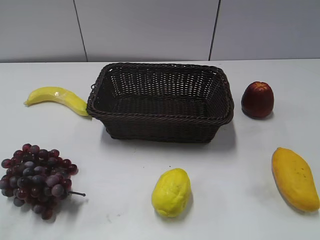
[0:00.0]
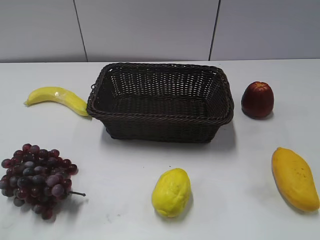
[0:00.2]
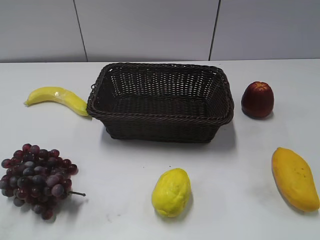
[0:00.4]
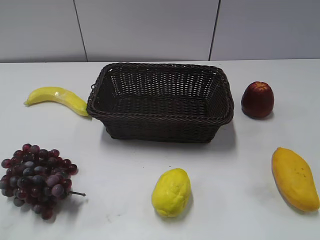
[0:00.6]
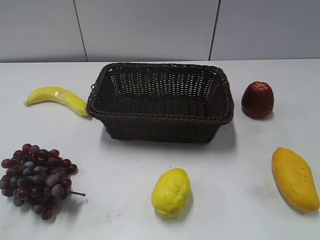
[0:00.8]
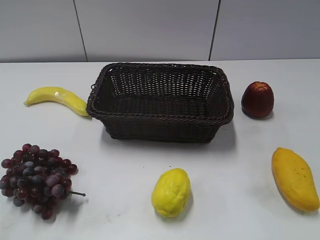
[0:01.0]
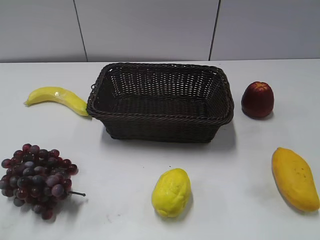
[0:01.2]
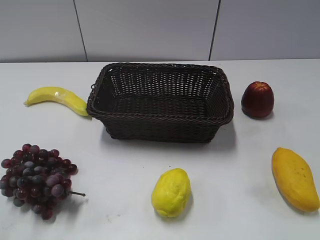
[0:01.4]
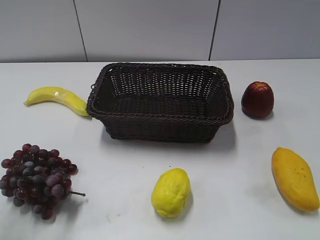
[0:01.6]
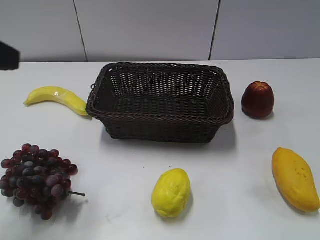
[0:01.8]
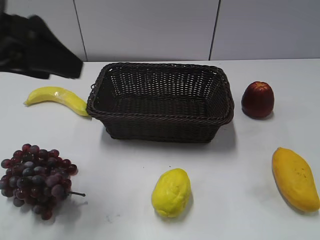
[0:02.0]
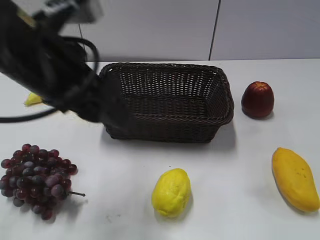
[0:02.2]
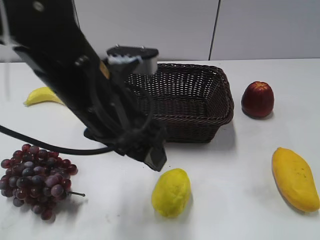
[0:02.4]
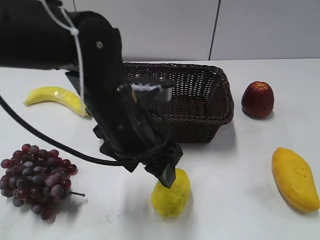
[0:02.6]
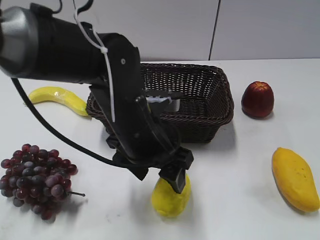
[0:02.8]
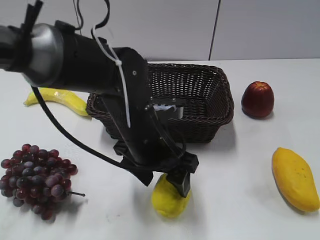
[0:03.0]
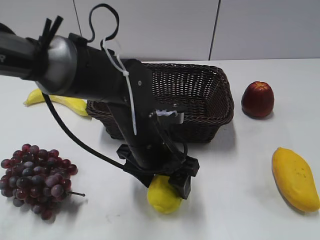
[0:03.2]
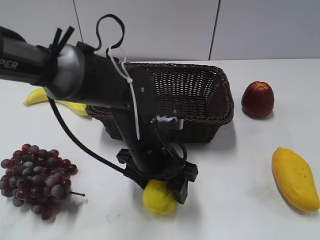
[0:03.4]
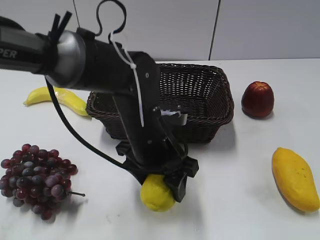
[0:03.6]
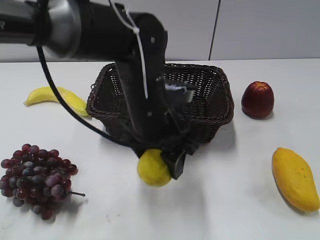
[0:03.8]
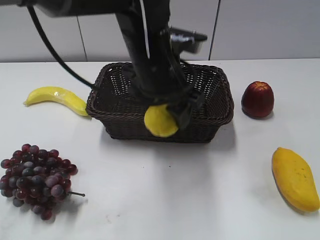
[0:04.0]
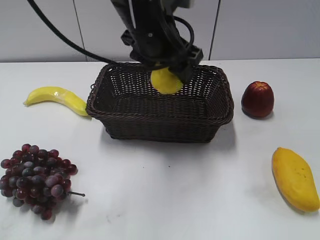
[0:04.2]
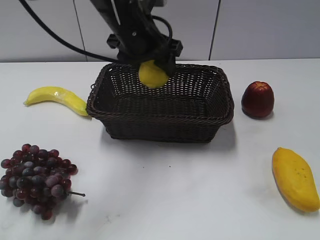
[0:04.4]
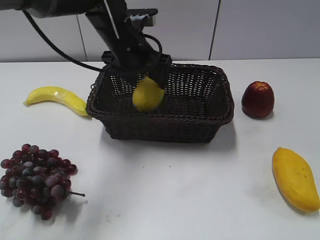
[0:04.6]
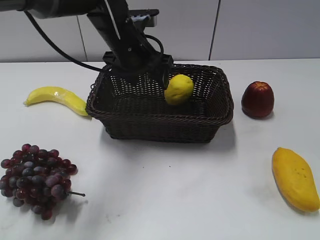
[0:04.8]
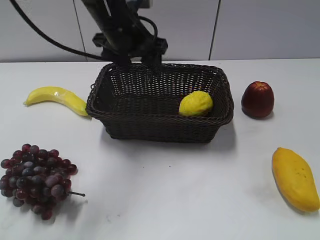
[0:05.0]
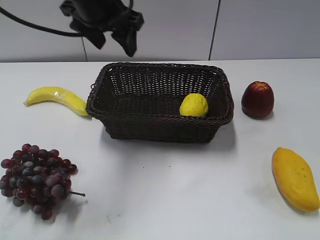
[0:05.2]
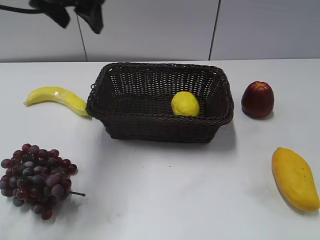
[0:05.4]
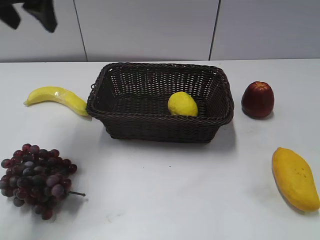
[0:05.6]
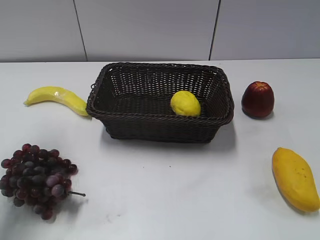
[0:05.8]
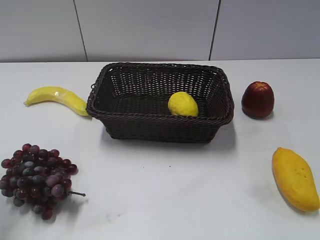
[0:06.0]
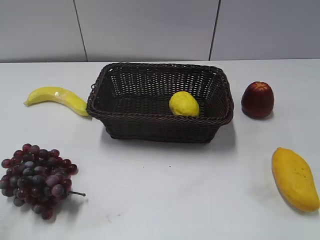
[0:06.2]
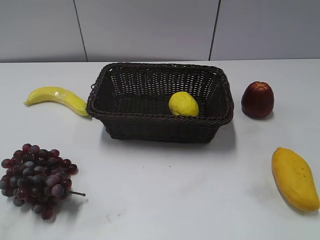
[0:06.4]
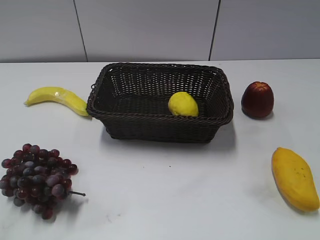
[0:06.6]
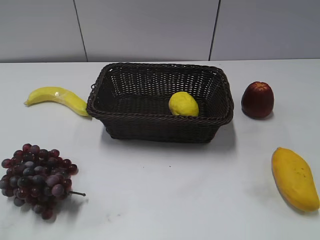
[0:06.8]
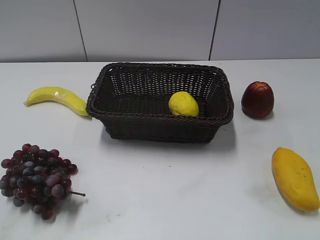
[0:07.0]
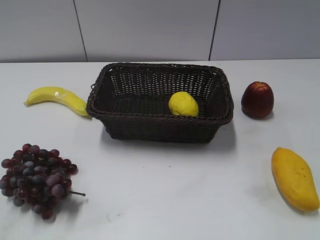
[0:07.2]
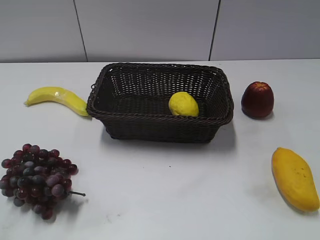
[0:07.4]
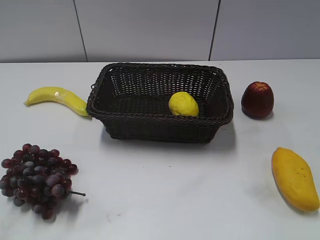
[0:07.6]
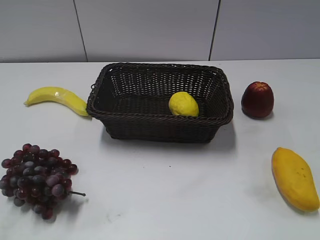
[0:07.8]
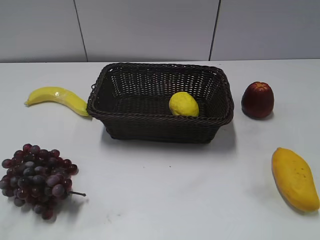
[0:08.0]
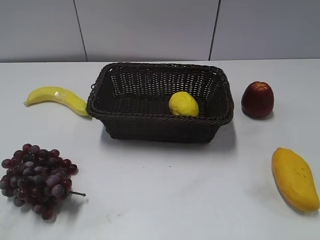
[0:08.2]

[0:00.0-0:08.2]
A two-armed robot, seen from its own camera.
Step, 1.8 to 3.0 s: Grasp the lemon with left gripper.
Step, 3.4 to 4.8 s: Place the lemon in the basket with left gripper.
1.6 to 3.2 s: The left gripper travels to the right, downward and forward by some 35 cm, and opens up.
3.2 to 5.0 s: The left gripper shifts approximately 20 cm forward and upward.
5.0 to 6.6 s: The left gripper goes approximately 50 cm backward and to the left, and closes.

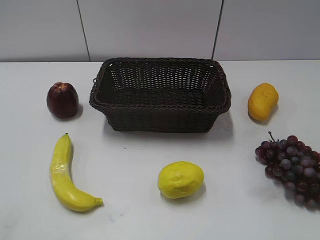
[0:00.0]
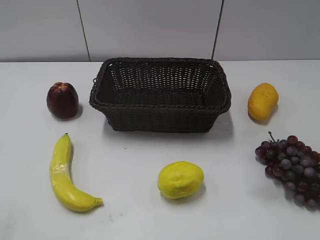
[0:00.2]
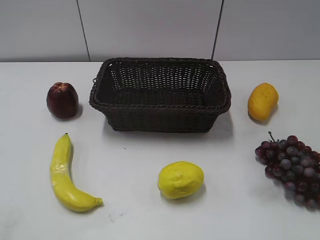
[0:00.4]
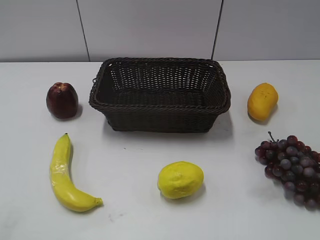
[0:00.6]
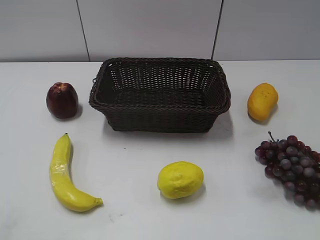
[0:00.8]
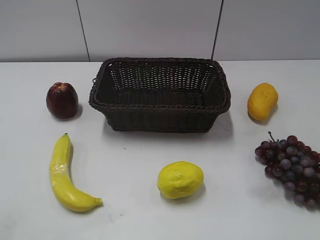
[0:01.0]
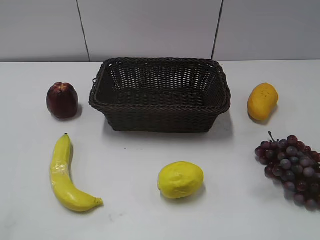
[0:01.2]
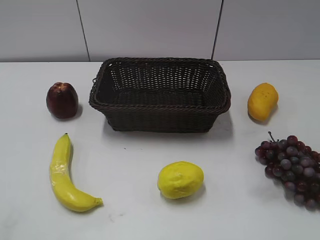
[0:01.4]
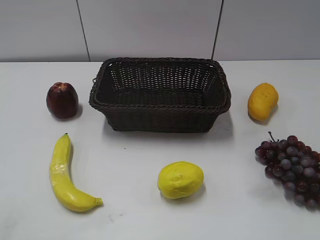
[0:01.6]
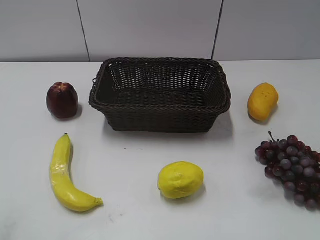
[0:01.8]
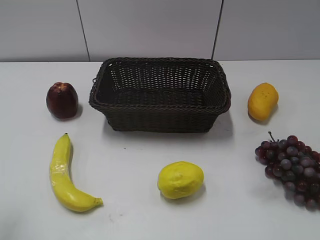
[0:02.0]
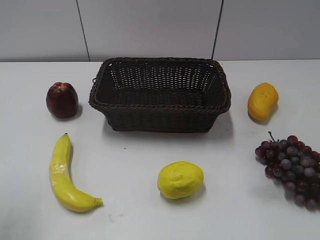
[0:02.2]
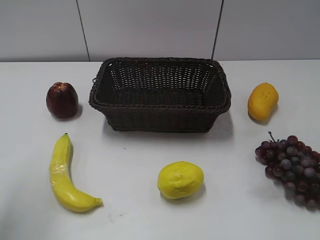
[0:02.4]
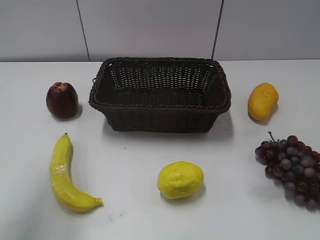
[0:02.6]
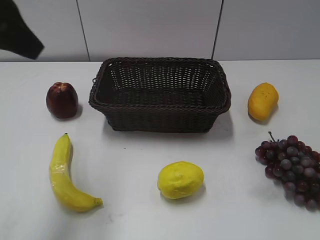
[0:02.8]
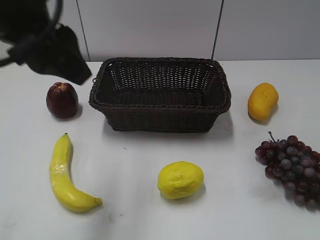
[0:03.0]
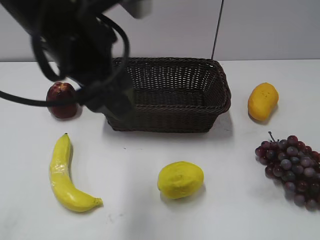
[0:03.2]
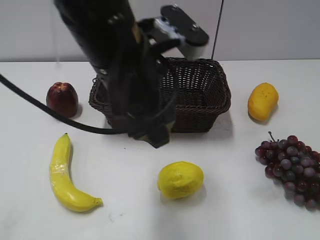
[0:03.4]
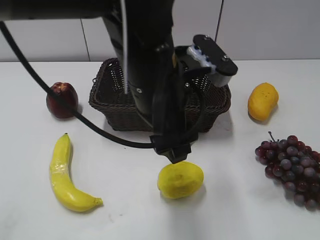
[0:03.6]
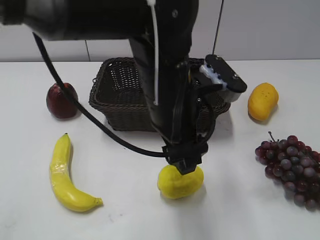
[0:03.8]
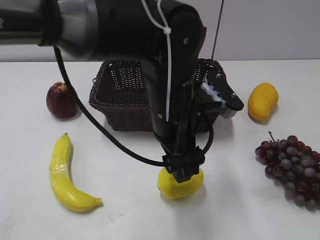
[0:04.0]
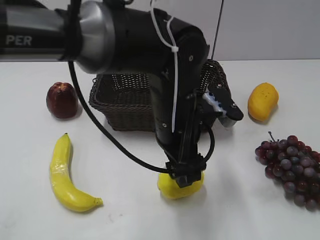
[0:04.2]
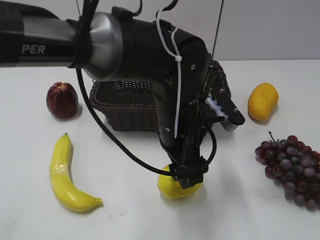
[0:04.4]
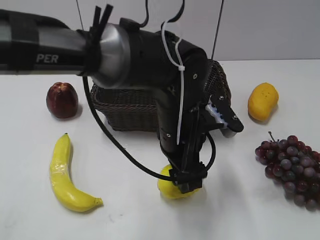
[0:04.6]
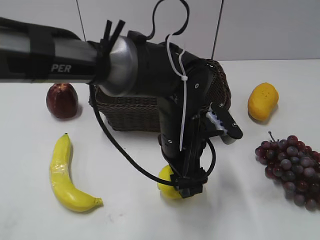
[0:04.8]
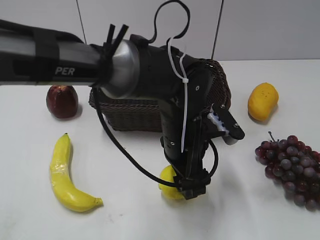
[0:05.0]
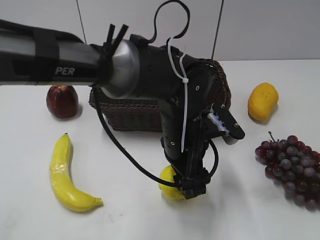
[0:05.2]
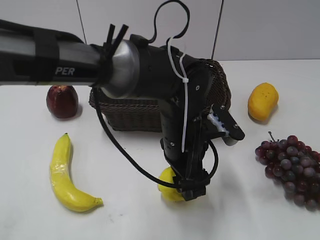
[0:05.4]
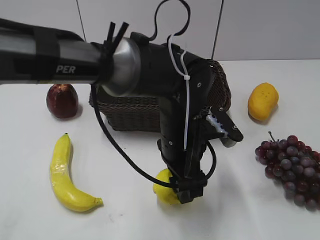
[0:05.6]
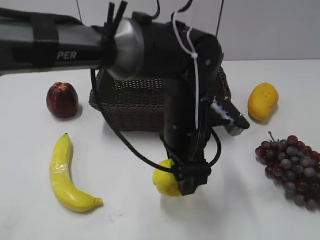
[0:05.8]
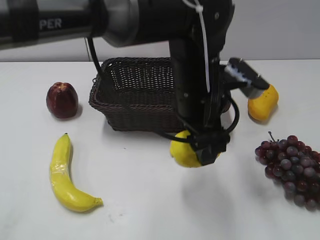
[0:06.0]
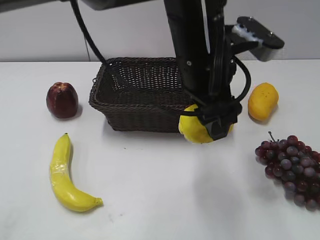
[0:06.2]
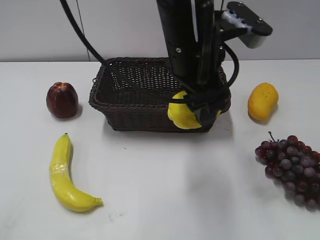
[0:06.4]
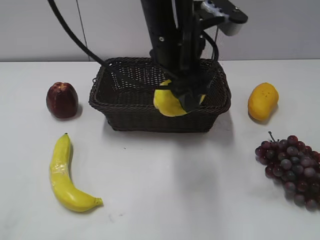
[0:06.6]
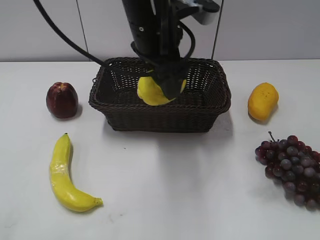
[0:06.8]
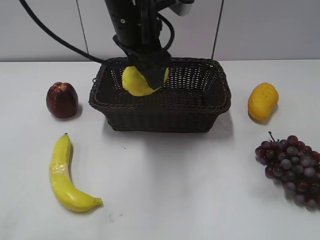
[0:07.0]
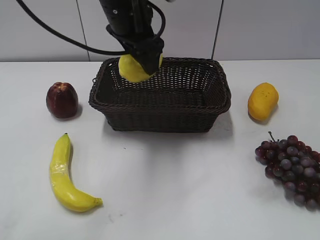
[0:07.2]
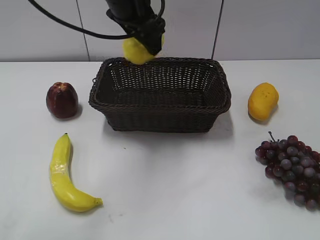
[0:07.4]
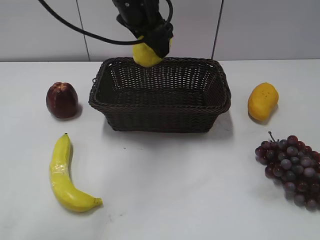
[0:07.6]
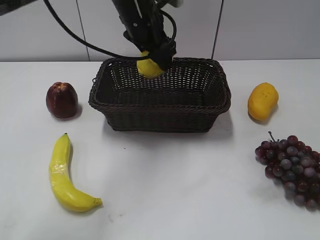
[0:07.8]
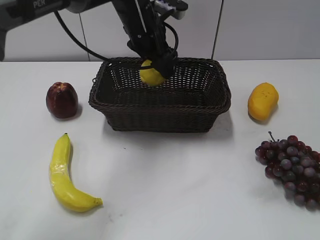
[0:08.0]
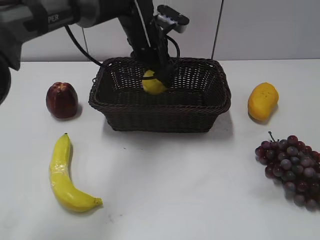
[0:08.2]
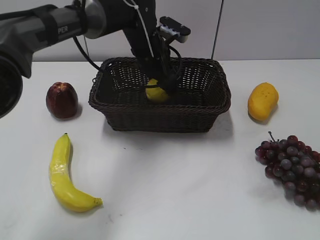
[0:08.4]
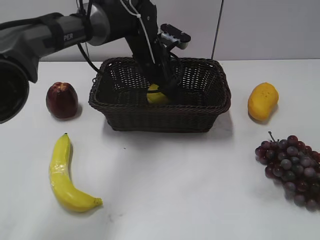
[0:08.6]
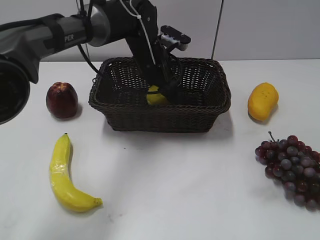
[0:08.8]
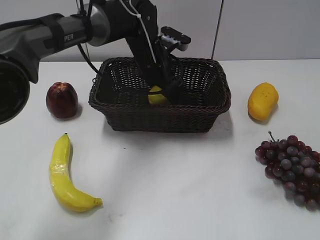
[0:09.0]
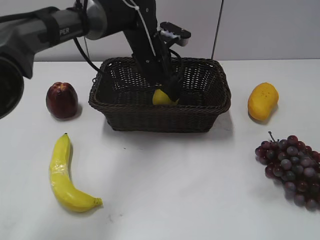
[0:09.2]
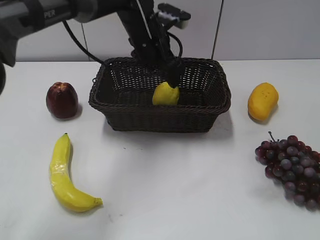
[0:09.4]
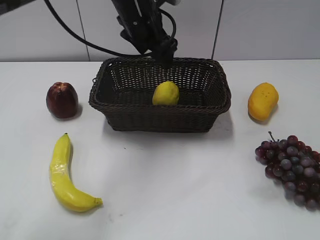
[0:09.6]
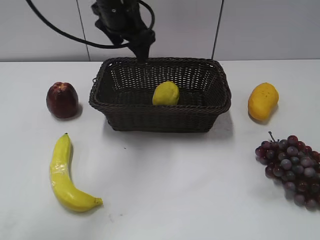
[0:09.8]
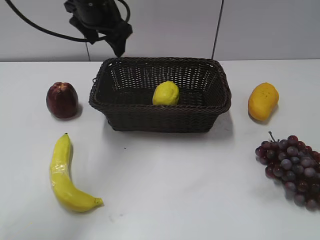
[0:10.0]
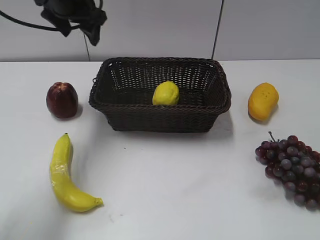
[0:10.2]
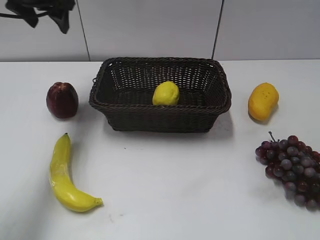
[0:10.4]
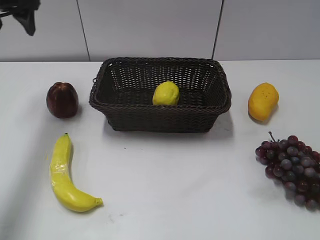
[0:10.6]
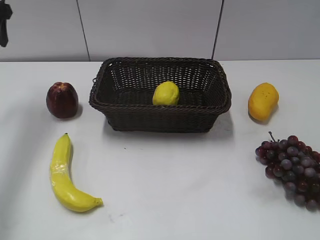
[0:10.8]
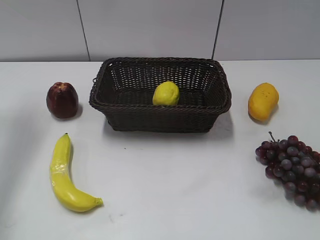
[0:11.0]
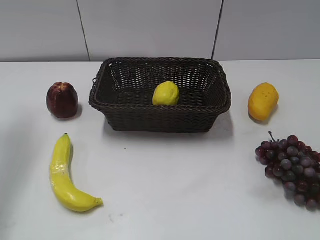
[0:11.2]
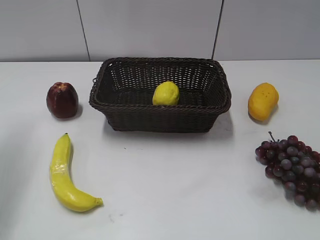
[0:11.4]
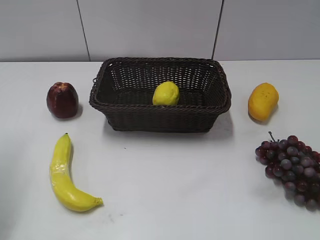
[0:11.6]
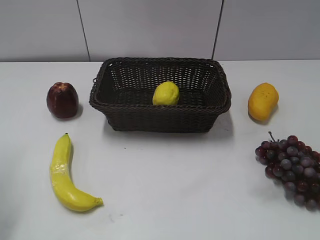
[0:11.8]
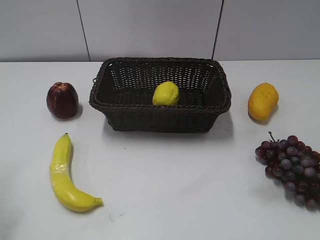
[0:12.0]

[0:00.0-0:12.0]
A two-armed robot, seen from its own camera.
Step, 2.8 to 5.8 s: Grasp the lemon with left gripper.
Step, 6.0 to 9.2 s: Place the lemon in the basket with left gripper.
1.6 to 3.0 s: The left gripper travels forward and to the right by some 25 cm.
3.0 to 4.4 s: The left gripper is displaced downward and to the right by about 25 cm.
4.4 to 6.0 s: The left gripper shifts roughly 5 cm upward.
6.0 to 7.6 s: The left gripper travels forward, to the left and upward by some 20 cm.
7.6 to 9.0 s: The left gripper heads downward, covering approximately 10 cm, and opens.
9.0 to 10.4 s: The left gripper shifts some 25 cm to the left and upward, and closes its fingers.
10.4 to 12.0 s: The left gripper is displaced backward and to the left by some 30 cm.

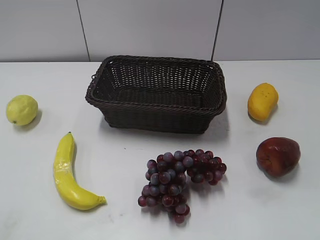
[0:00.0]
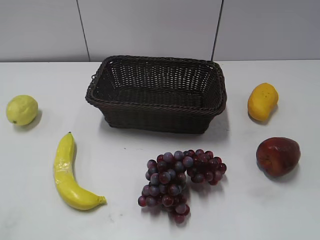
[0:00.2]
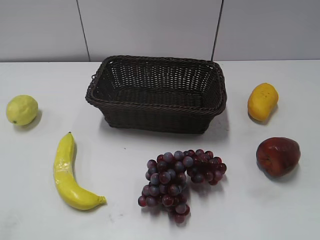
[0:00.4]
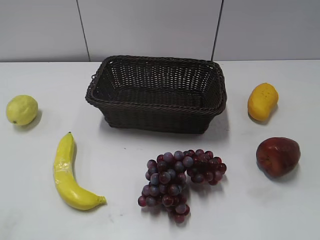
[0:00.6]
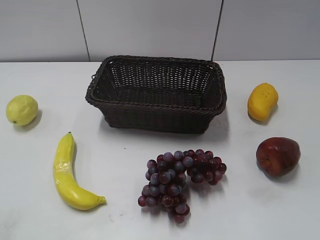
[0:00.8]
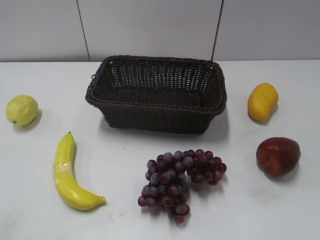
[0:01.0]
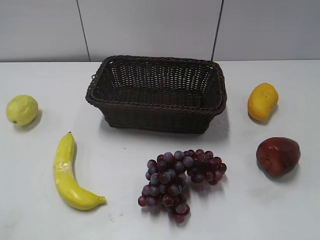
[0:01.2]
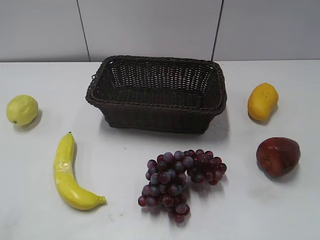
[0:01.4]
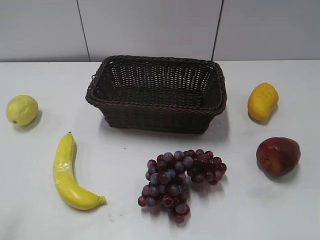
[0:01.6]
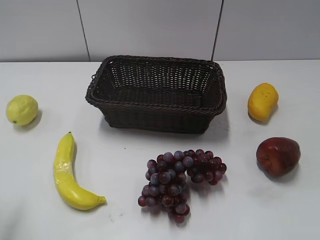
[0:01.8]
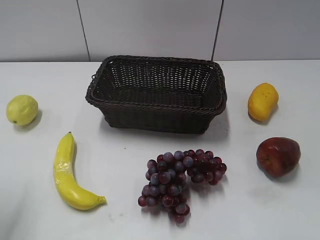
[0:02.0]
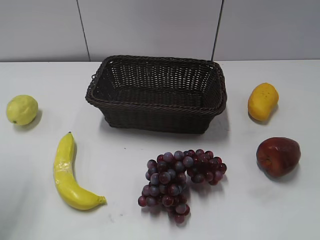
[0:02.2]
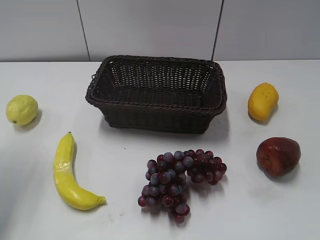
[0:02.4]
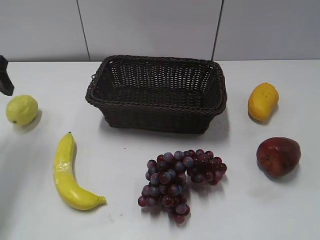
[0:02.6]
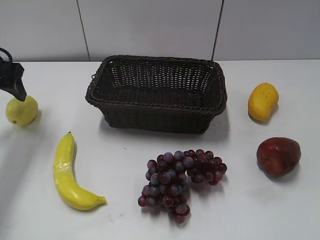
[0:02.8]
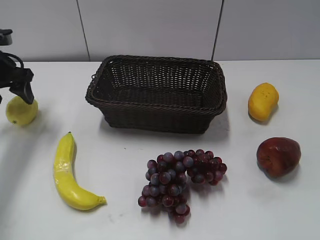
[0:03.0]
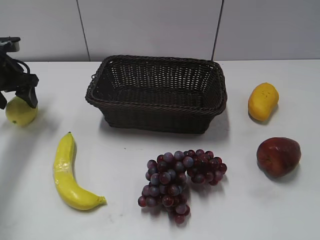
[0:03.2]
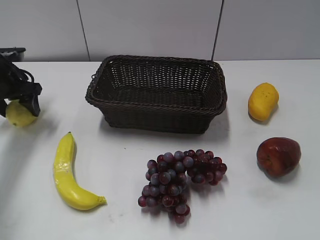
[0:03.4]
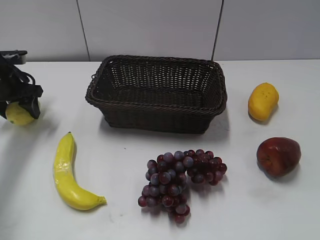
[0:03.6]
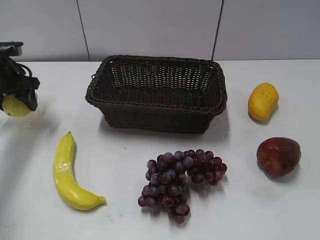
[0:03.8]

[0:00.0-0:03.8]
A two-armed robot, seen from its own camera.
Step, 2.6 to 3.4 s: Grasp the lemon with left gripper.
1.2 to 2.6 s: The left gripper shifts roughly 35 cm forward, and opens.
2.6 to 3.8 s: The left gripper heads forward and downward, covering some 10 cm, and closes.
